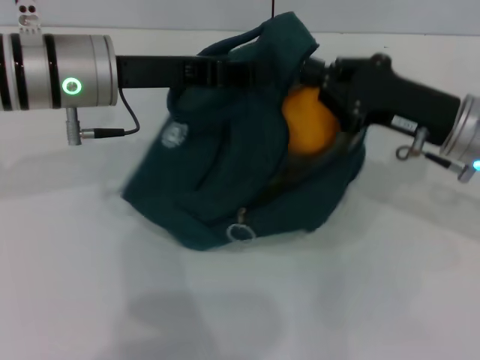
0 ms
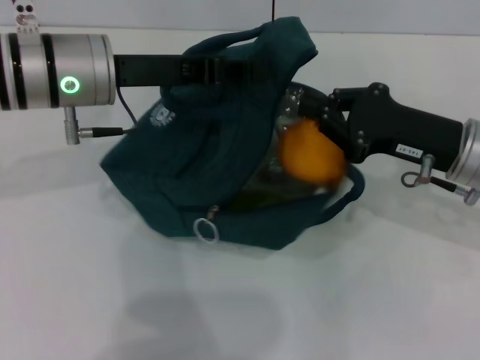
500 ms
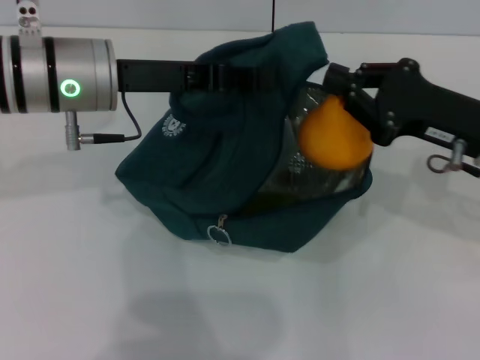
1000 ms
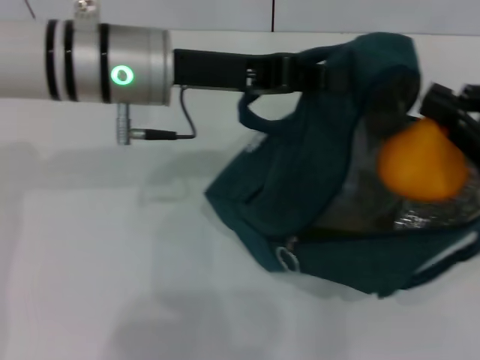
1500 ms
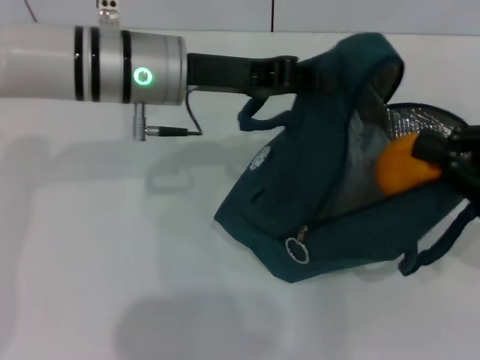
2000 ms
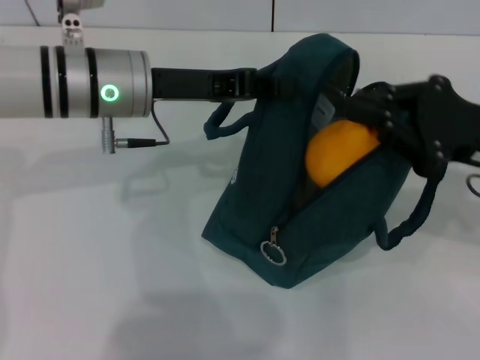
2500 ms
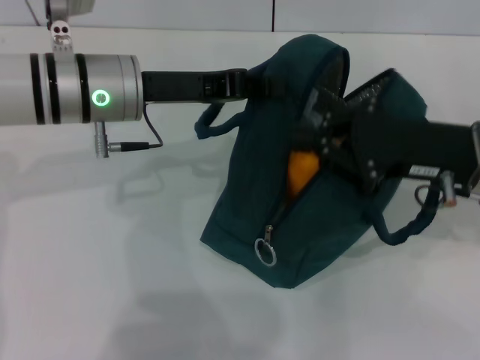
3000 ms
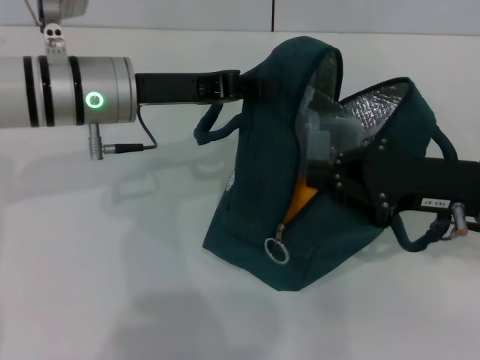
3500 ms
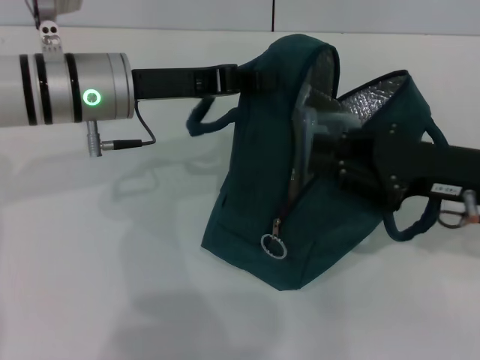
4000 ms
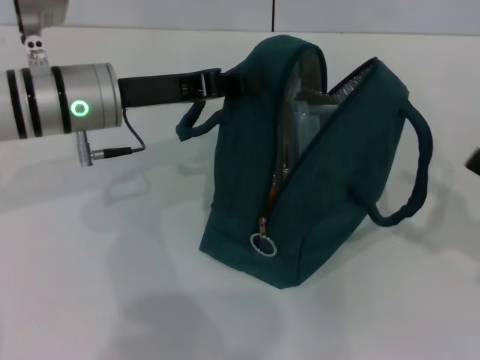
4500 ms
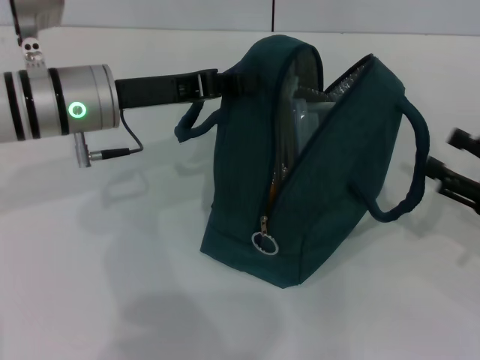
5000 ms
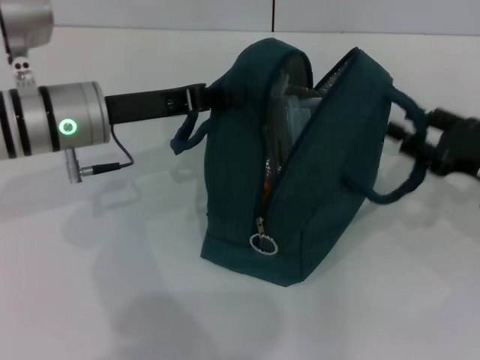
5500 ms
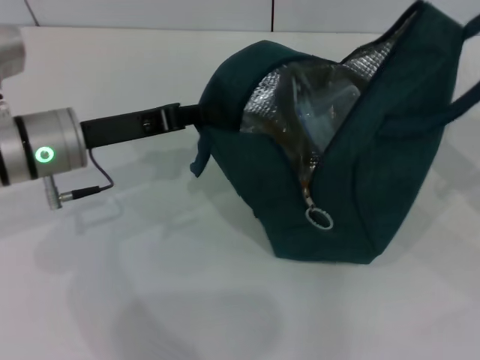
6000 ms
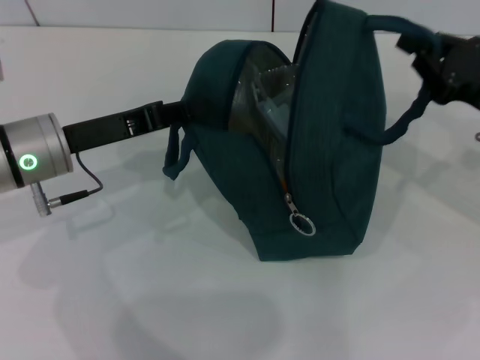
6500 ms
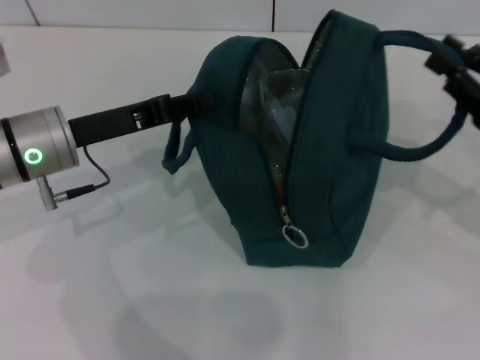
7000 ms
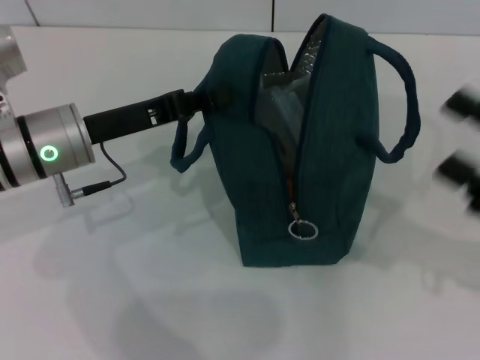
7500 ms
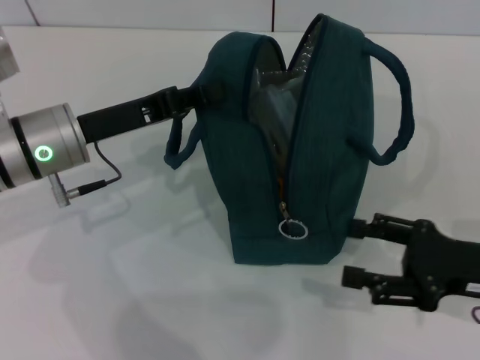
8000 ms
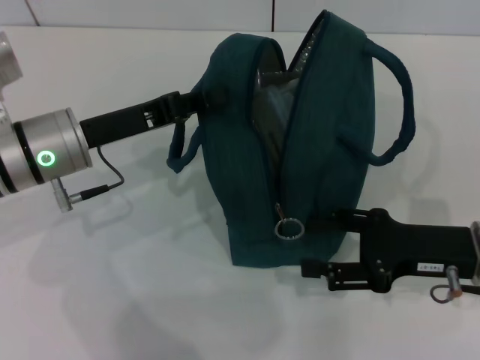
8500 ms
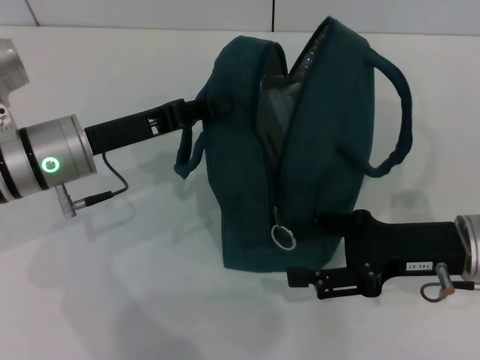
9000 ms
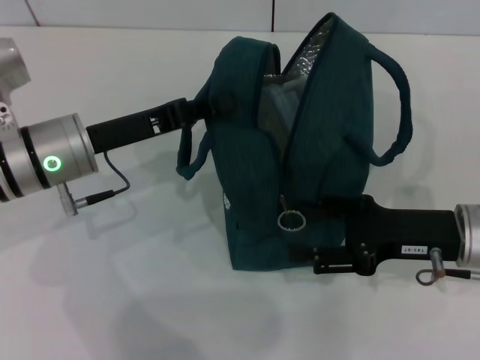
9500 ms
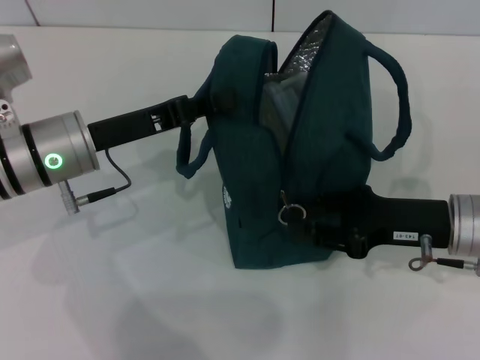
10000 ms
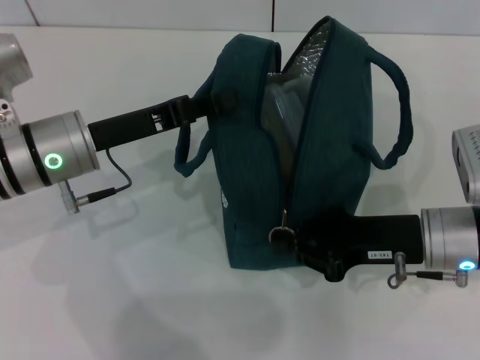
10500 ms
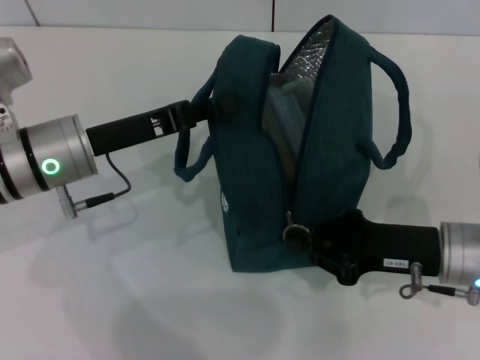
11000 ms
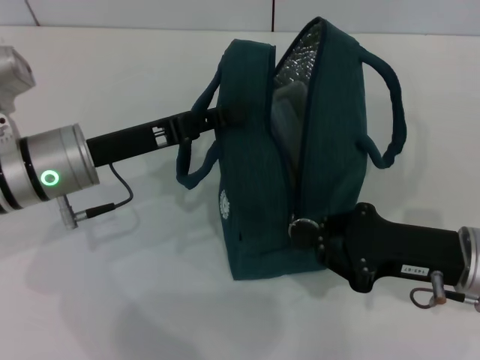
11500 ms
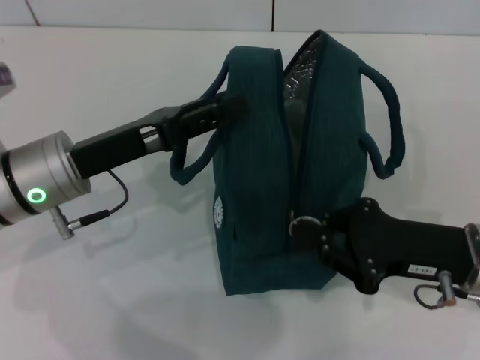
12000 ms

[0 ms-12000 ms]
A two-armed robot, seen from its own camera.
Step, 0 ms to 4000 ms: Secure the lunch bag with your left hand.
Step, 4500 ms to 6500 ms: Hold the lunch bag with your right hand.
0 ms to 2000 ms: The right gripper is displaced to the right and backward by roughly 10 cm. The left gripper shifts some 5 cm to the right.
2000 ms to 4000 ms: The right gripper is displaced to the left by about 5 cm.
4000 ms to 6000 ms: The right gripper moves to the right, roughly 10 cm, and opens, then closes again. The left gripper moves about 5 cm.
6000 ms to 8000 ms: The right gripper goes about 10 cm downward, backward and to the left, and opens up.
8000 ms to 10000 ms: The right gripper is displaced forward and to the left by roughly 5 cm.
10000 ms to 12000 ms: The left gripper opens its fingers. The right gripper closes up.

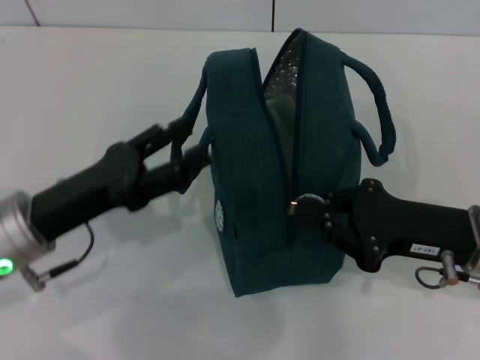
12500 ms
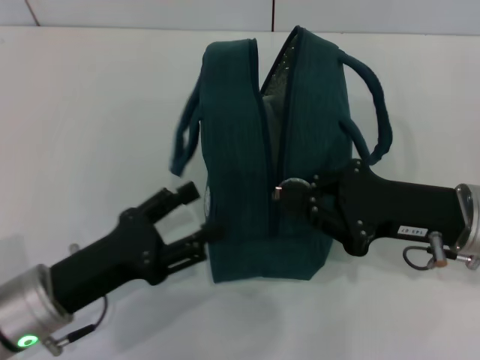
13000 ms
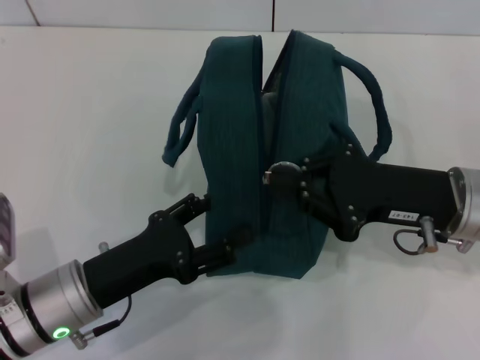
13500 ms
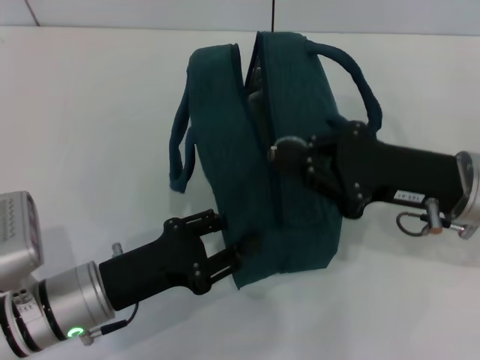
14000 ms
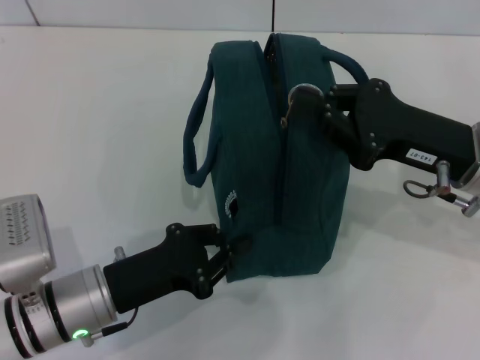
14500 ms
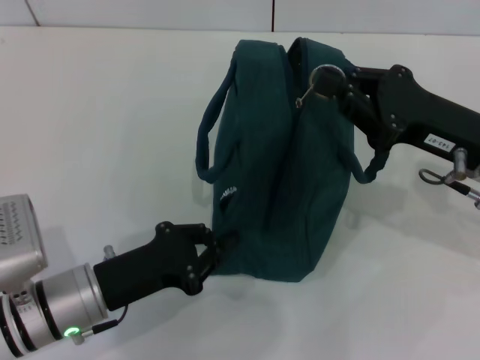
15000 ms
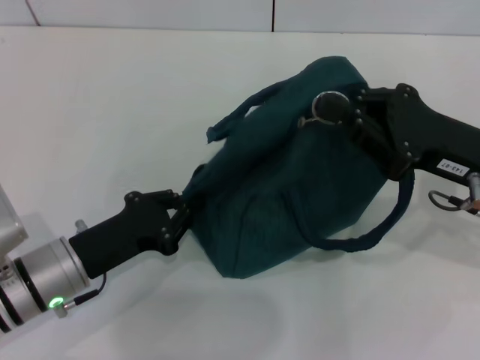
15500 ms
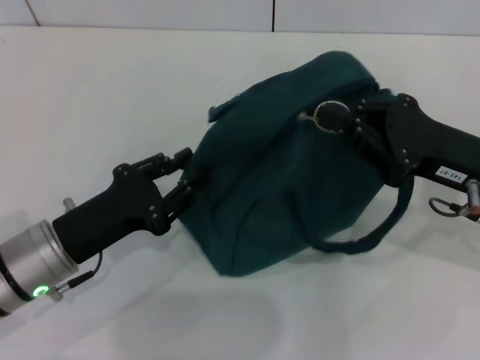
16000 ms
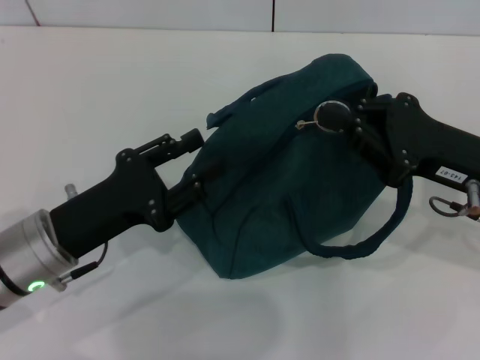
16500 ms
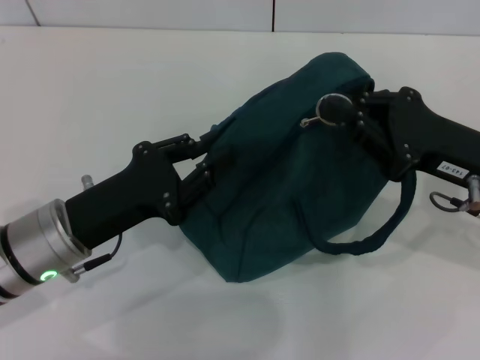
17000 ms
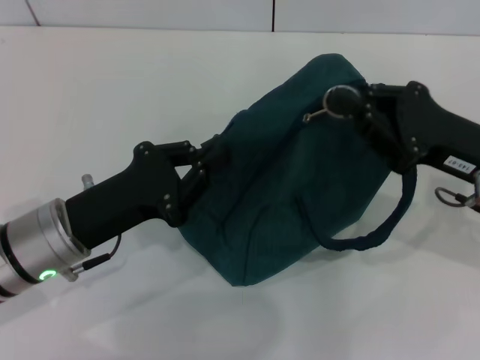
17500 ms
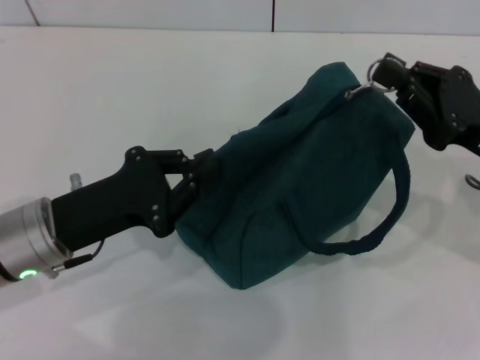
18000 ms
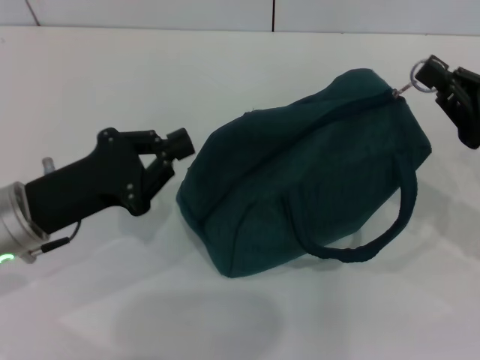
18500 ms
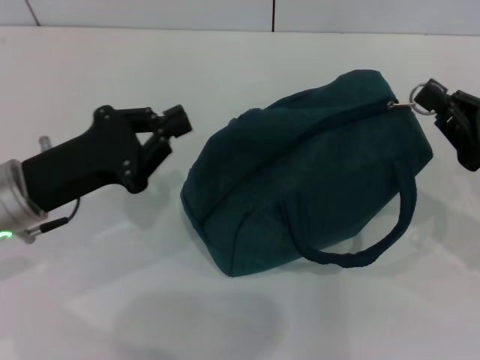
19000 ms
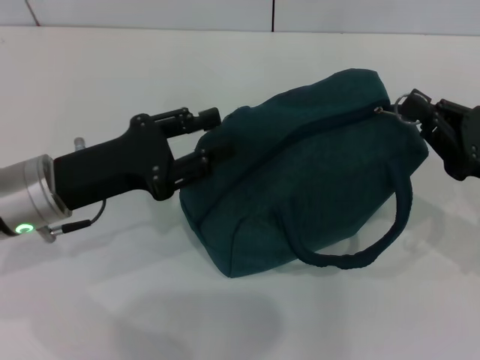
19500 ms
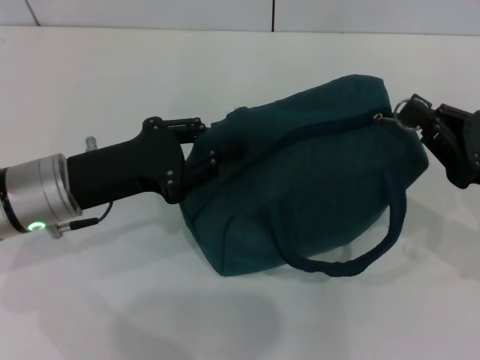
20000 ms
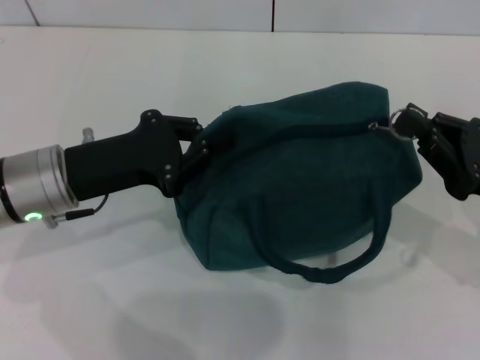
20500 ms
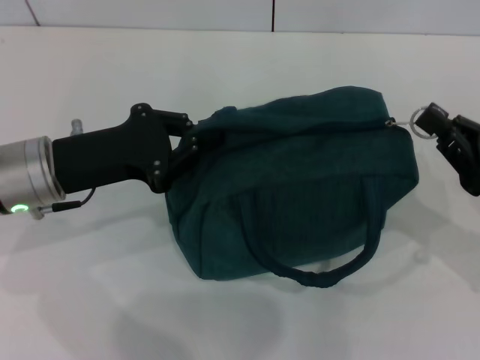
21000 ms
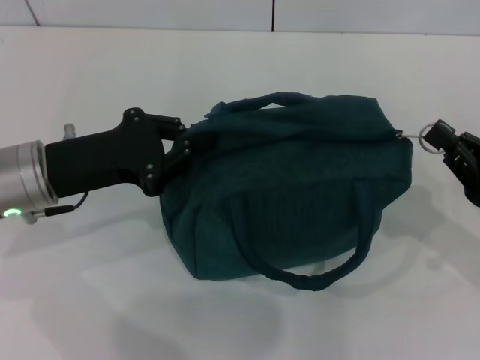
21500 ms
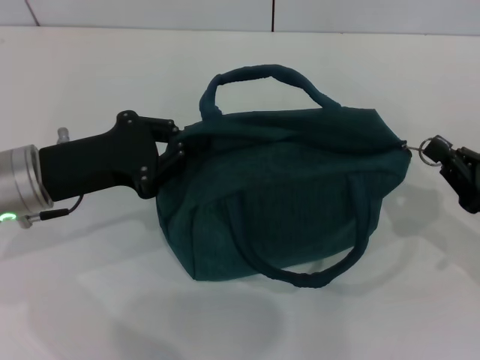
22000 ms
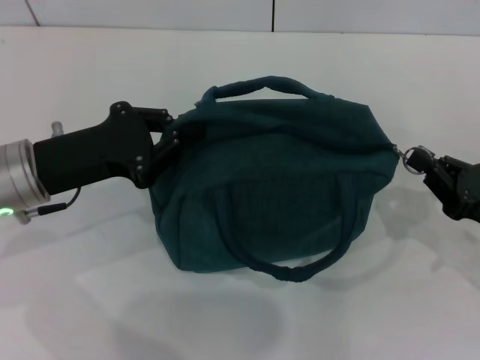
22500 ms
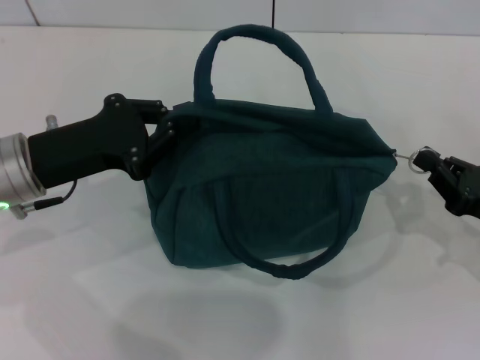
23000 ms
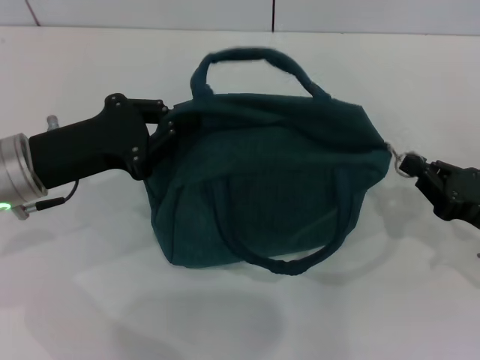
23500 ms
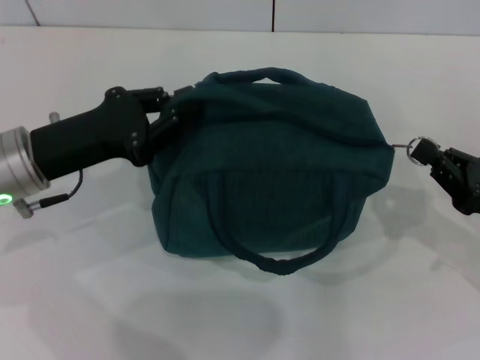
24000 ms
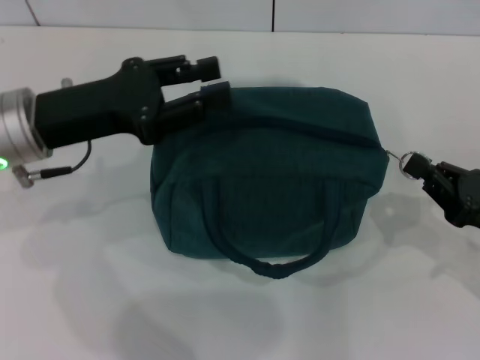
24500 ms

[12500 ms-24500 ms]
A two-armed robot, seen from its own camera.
12500 ms to 14500 ms: The right gripper shifts by about 5 cm. Meanwhile the left gripper is displaced downward by about 5 cm, and closes.
14500 ms to 16500 ms: The left gripper shifts by about 5 cm, and opens.
16500 ms to 18500 ms: The left gripper closes its fingers. Meanwhile the right gripper travels to the right by some 5 cm.
18500 ms to 20500 ms: The left gripper opens and closes again.
20500 ms to 22500 ms: The grippers move only a little.
22500 ms to 24500 ms: The left gripper opens its fingers.

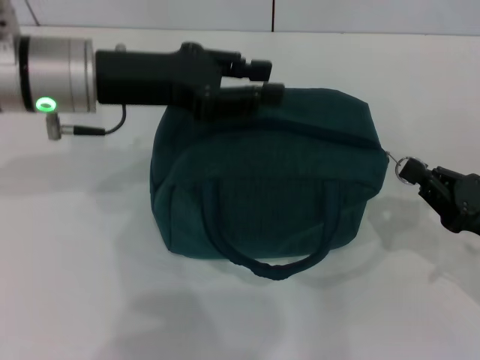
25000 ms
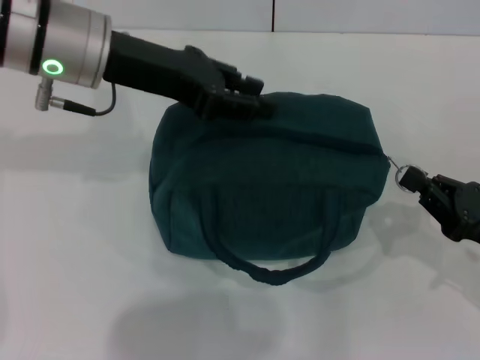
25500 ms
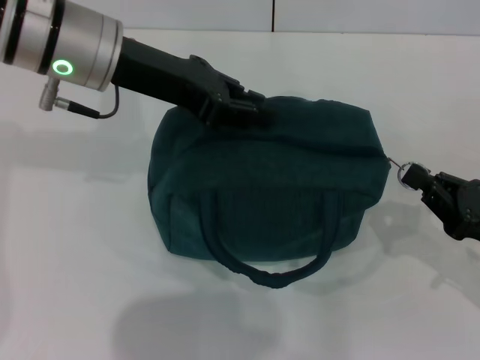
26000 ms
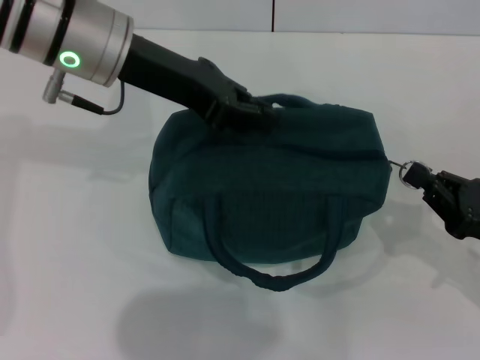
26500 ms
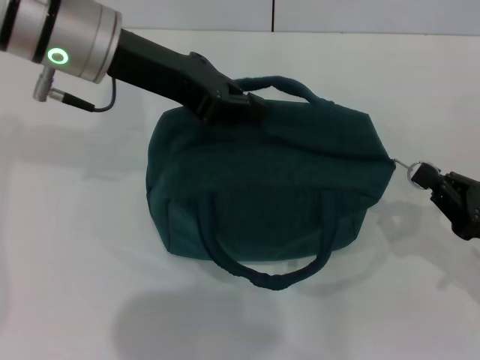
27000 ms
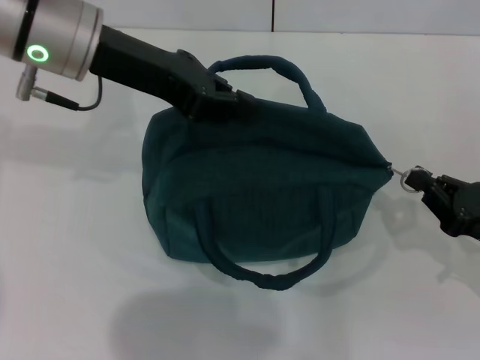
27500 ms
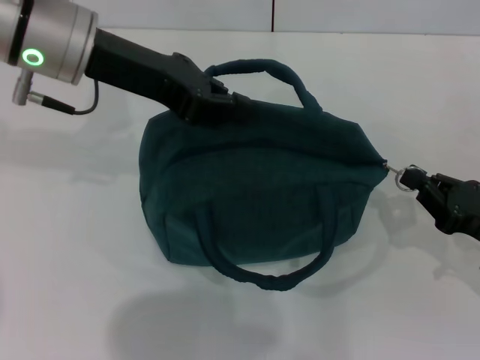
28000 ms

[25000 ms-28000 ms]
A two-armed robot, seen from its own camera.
25000 ms to 26500 ms: The left gripper ends up roughly 5 cm from where it was.
26500 ms to 28000 ms: The grippers move only a little.
